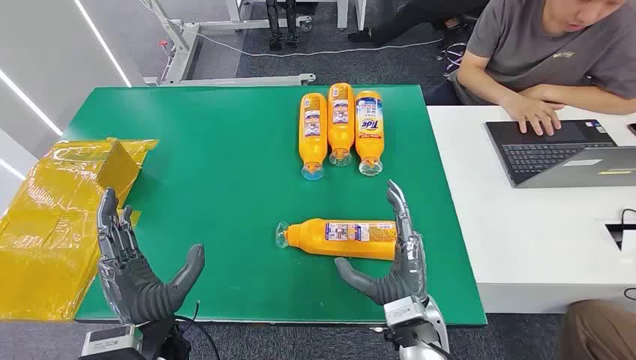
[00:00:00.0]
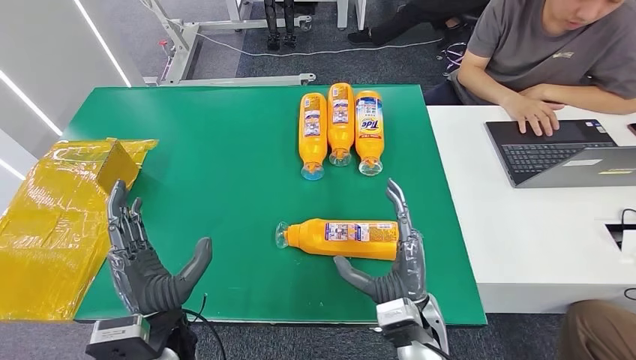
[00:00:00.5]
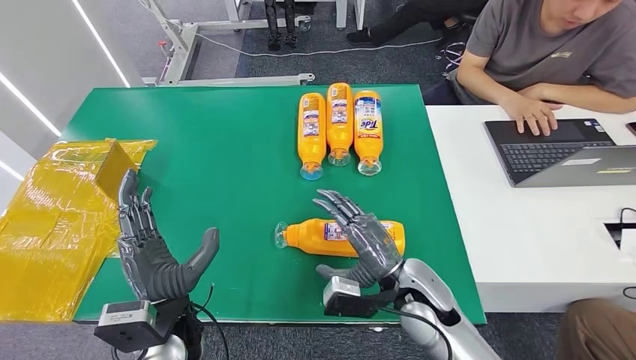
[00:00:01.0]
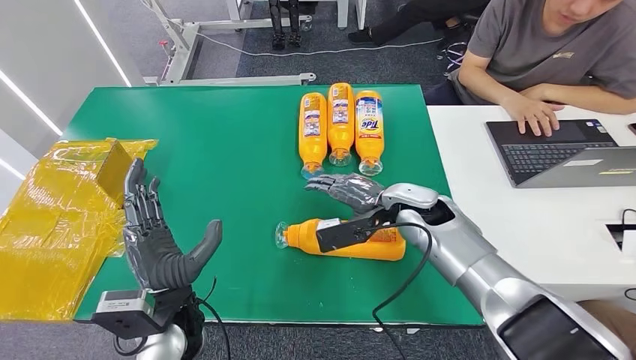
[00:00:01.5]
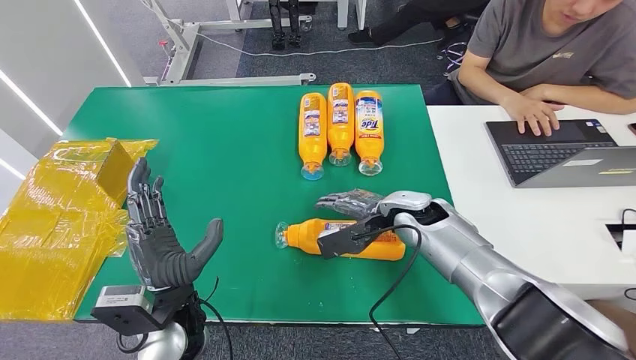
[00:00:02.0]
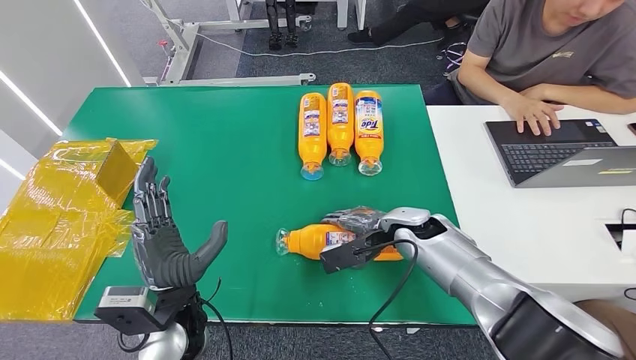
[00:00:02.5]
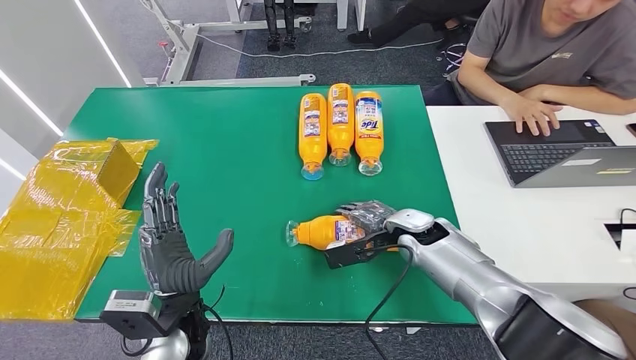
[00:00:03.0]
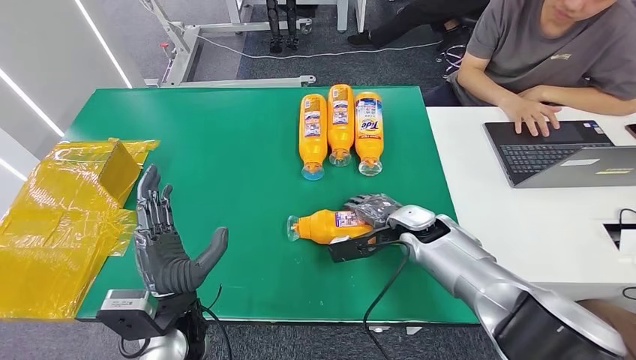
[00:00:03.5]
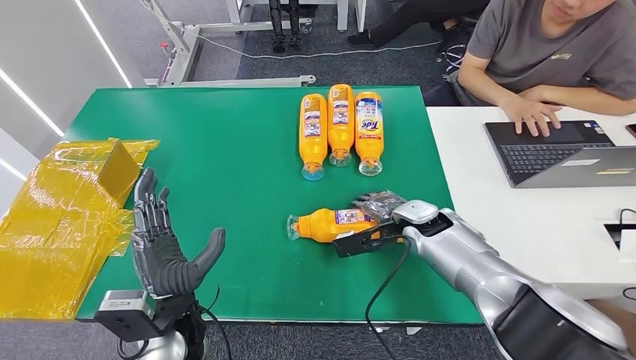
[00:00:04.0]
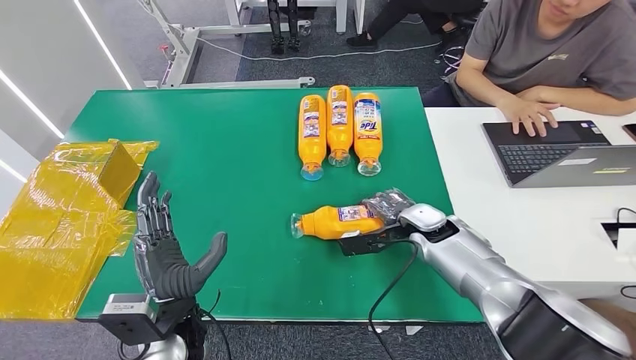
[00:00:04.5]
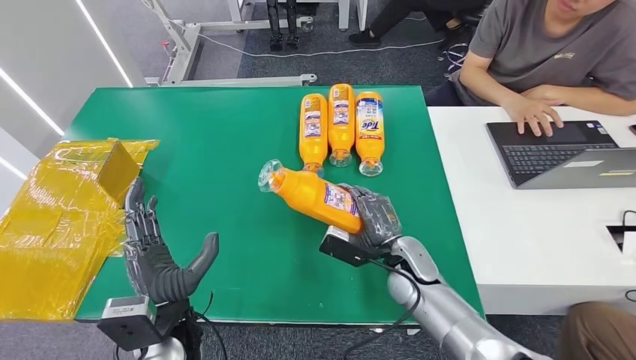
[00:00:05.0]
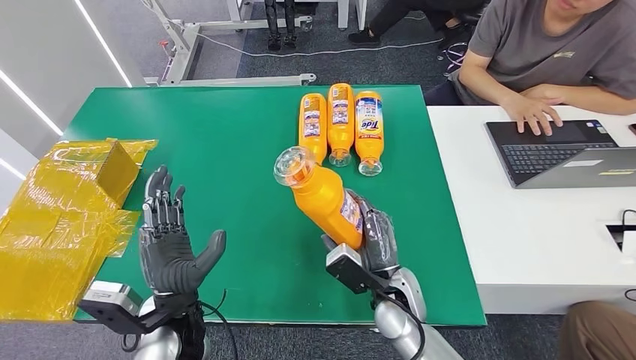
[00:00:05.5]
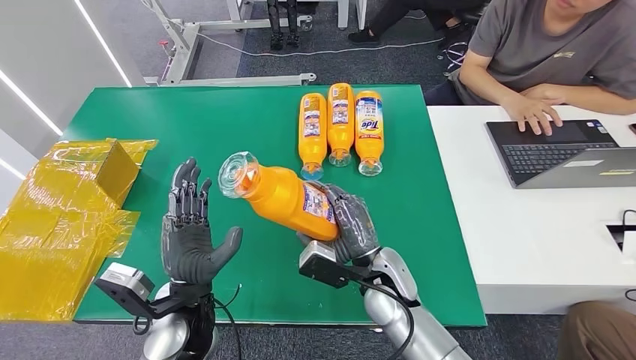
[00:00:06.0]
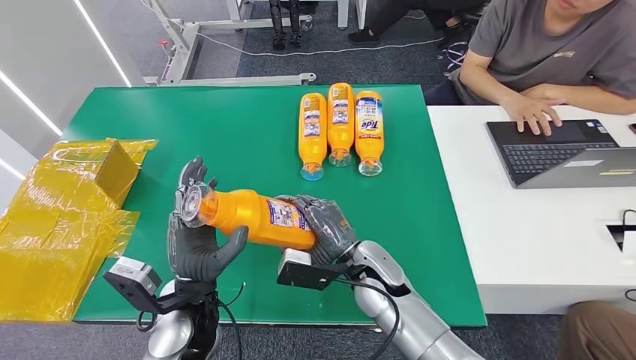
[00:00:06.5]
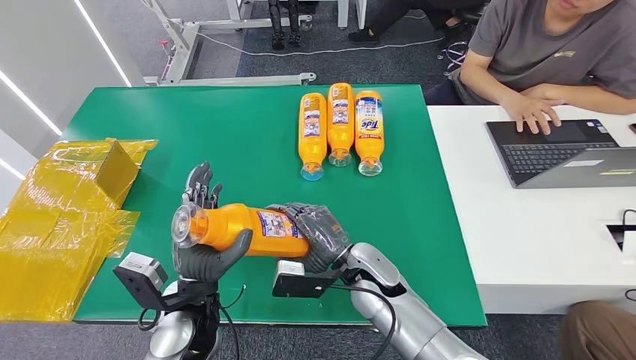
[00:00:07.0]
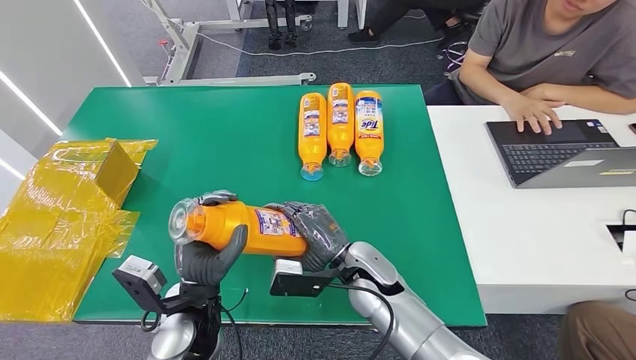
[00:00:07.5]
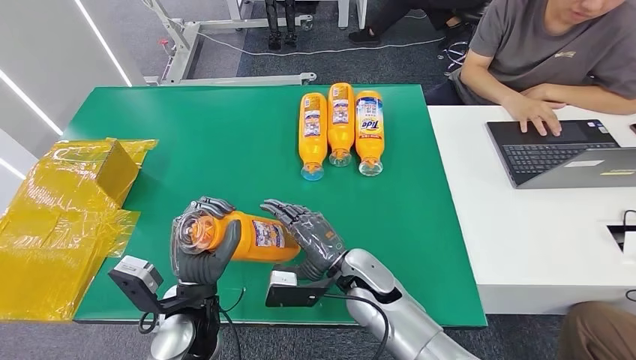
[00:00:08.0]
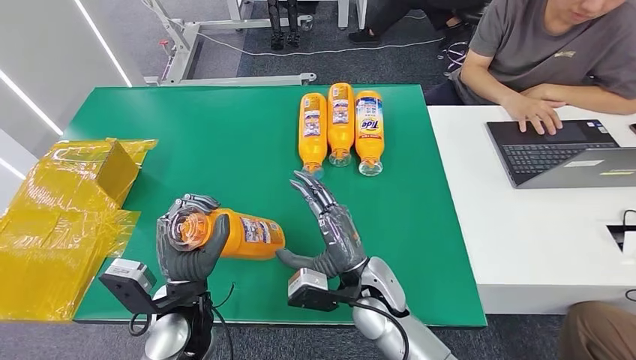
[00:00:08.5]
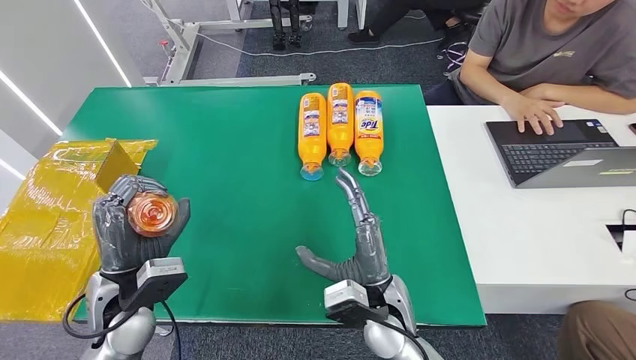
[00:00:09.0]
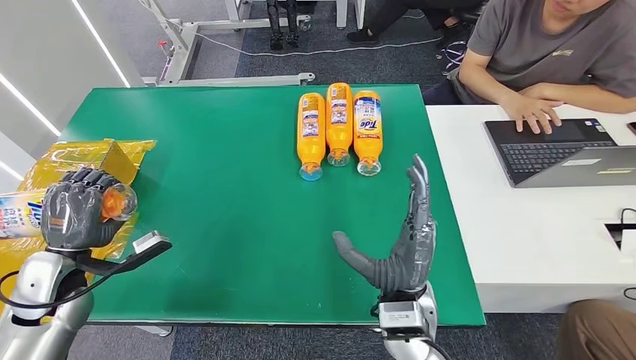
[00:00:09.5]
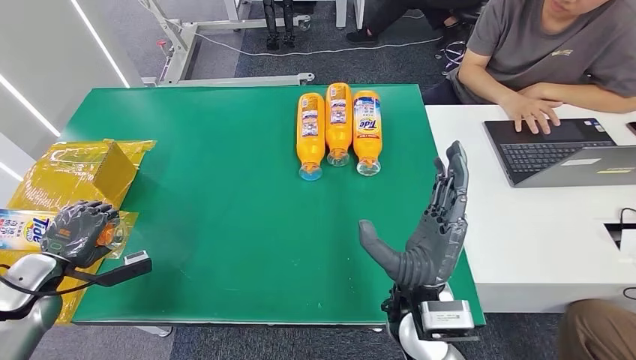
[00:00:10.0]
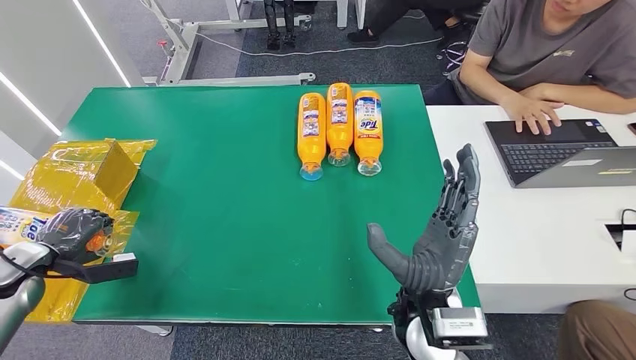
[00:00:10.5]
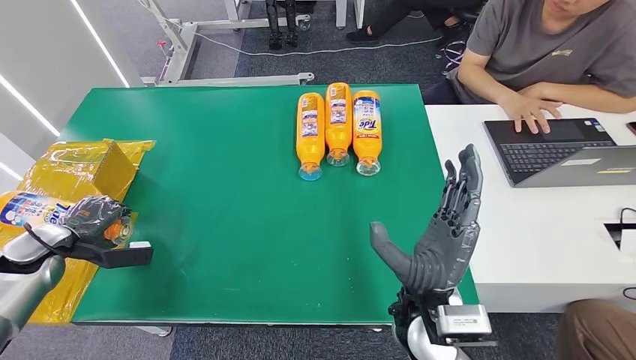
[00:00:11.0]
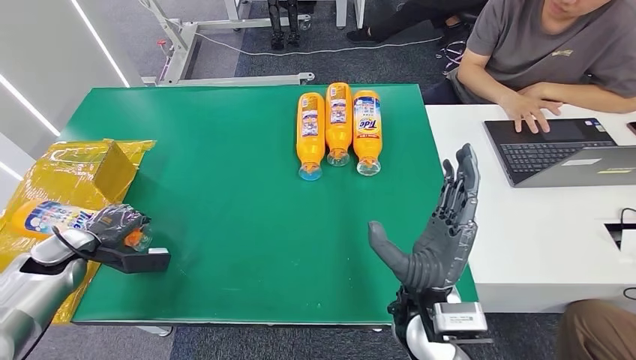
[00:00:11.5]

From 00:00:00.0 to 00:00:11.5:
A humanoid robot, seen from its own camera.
Step, from 00:00:00.0 to 00:00:06.5: Pick up the bottle from the table.
From 00:00:02.0 to 00:00:04.0: The right hand moves roughly 5 cm.
From 00:00:09.5 to 00:00:11.5: The left hand moves to the left, forward and downward, some 15 cm.

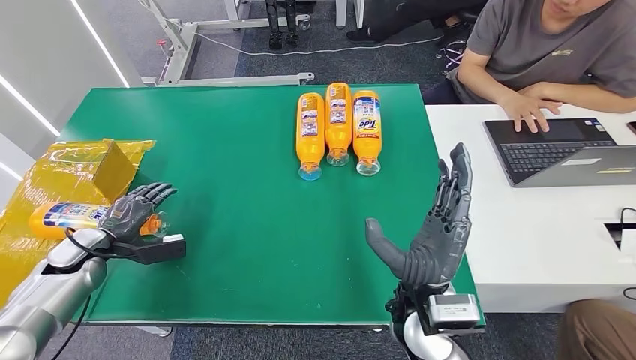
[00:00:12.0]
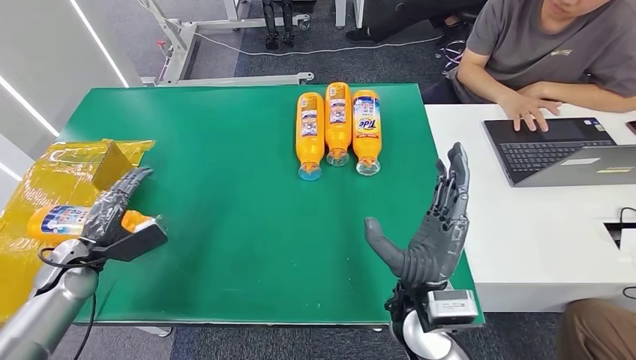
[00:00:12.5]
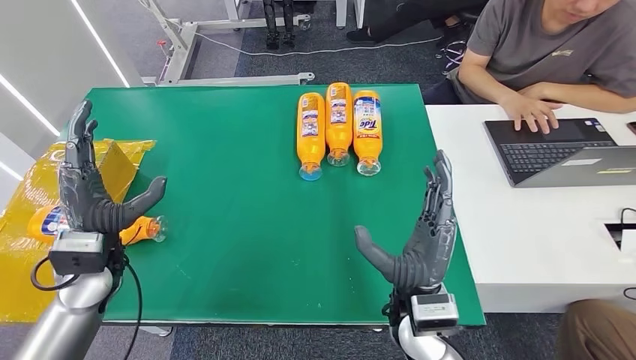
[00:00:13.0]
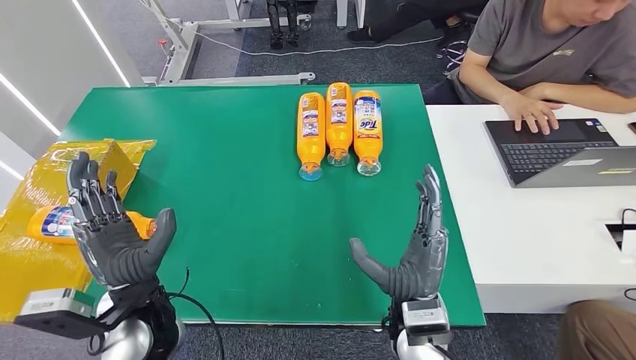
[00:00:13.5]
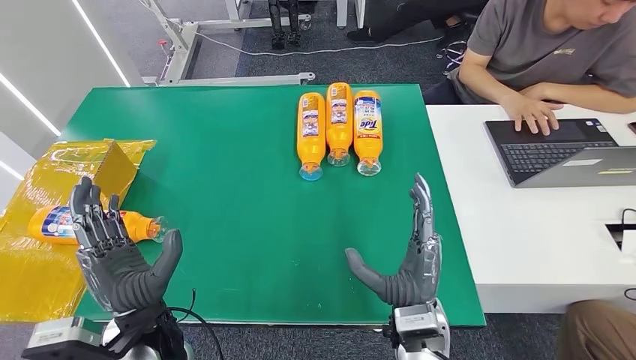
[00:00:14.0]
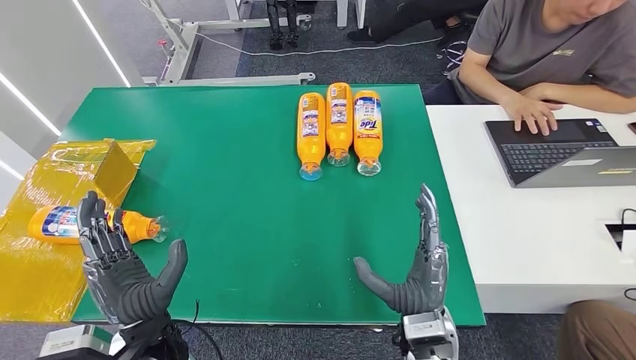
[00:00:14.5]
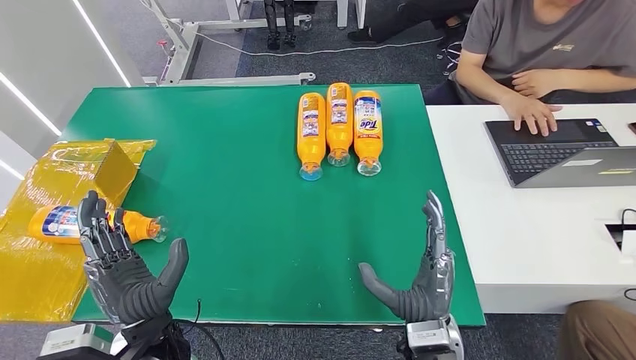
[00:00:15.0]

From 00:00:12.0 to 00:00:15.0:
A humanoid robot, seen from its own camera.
Step, from 00:00:12.0 to 00:00:15.0: Turn the bottle to the front side.
From 00:00:12.0 to 00:00:13.5: The left hand goes approximately 25 cm to the right and backward.
From 00:00:13.5 to 00:00:15.0: The left hand shifts by about 5 cm.
